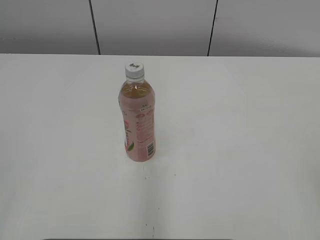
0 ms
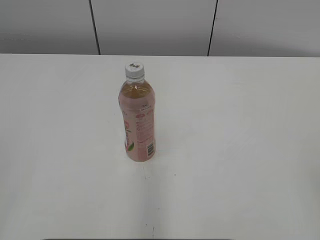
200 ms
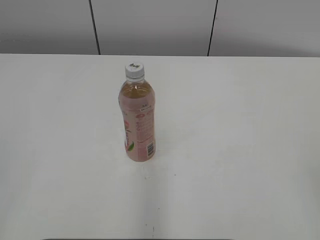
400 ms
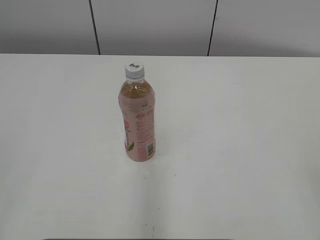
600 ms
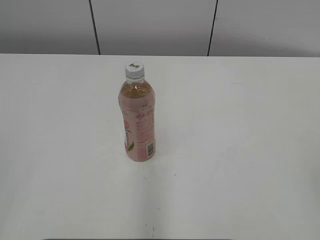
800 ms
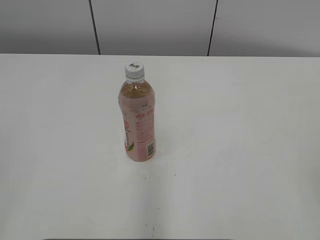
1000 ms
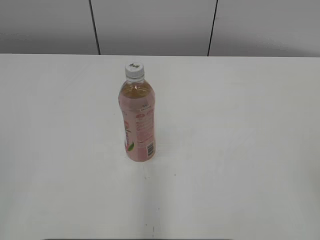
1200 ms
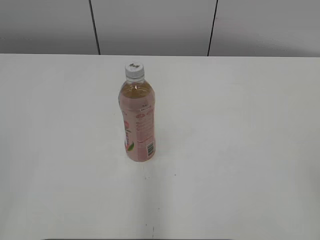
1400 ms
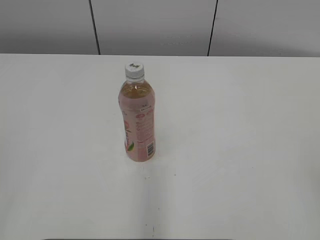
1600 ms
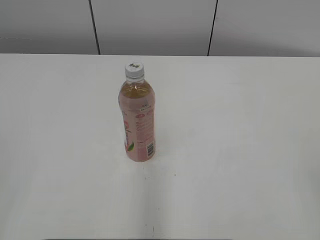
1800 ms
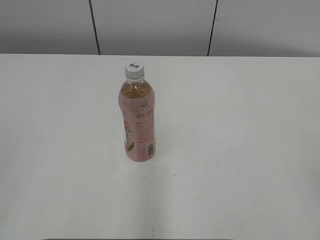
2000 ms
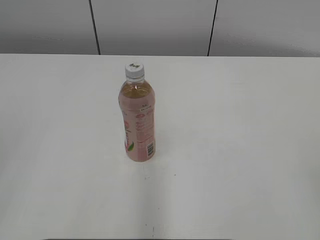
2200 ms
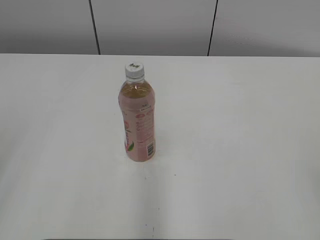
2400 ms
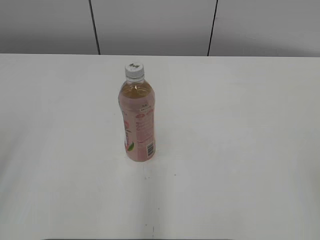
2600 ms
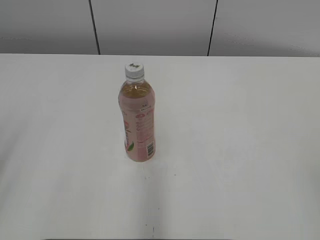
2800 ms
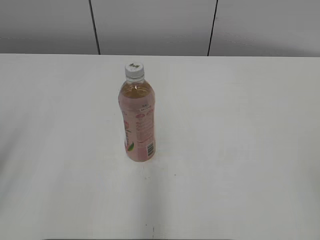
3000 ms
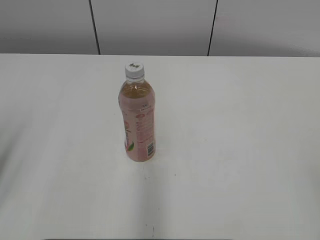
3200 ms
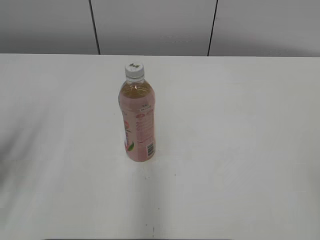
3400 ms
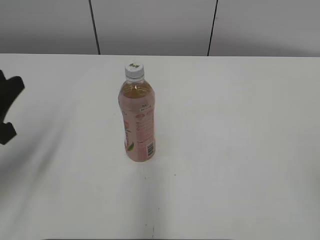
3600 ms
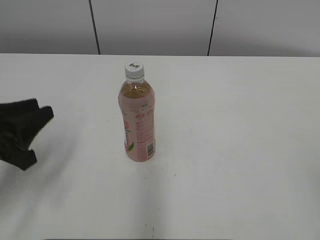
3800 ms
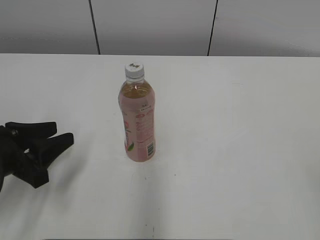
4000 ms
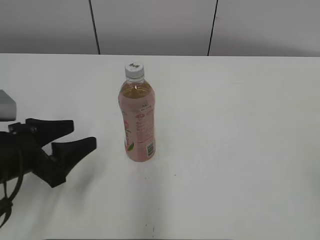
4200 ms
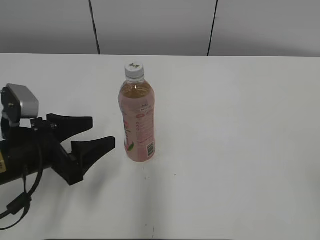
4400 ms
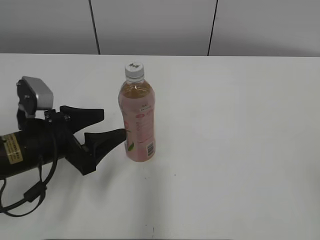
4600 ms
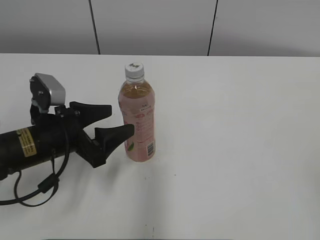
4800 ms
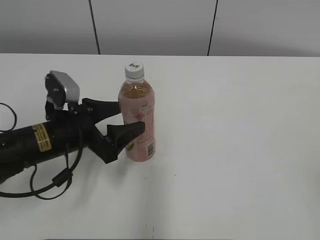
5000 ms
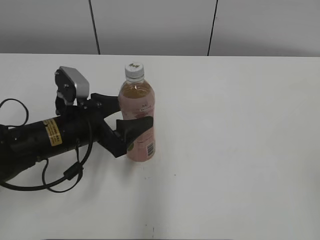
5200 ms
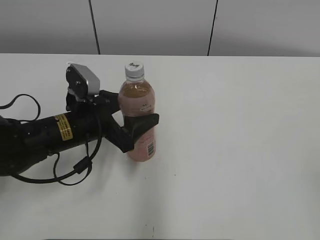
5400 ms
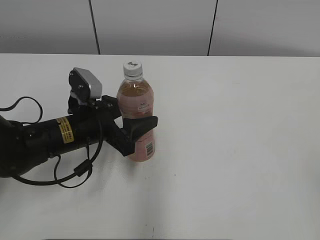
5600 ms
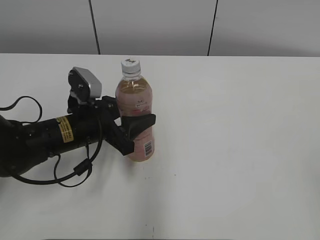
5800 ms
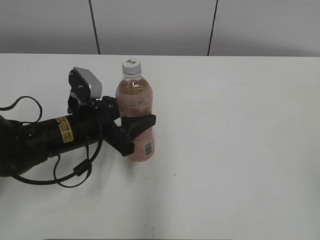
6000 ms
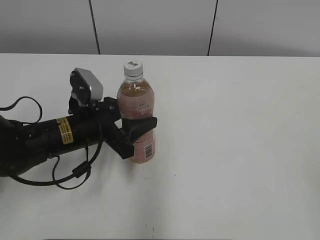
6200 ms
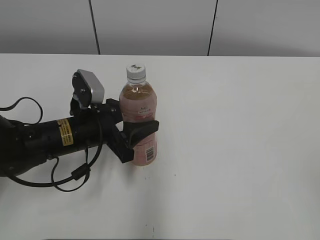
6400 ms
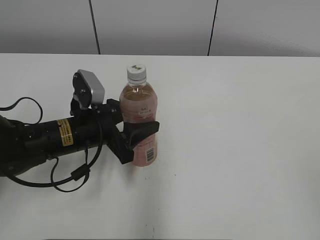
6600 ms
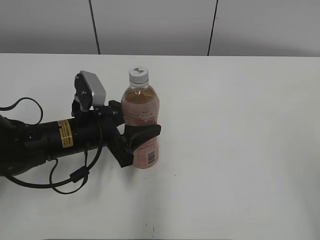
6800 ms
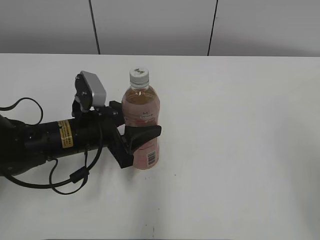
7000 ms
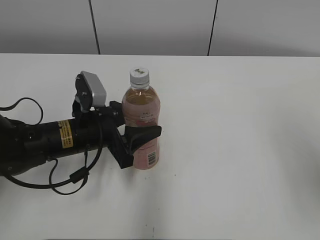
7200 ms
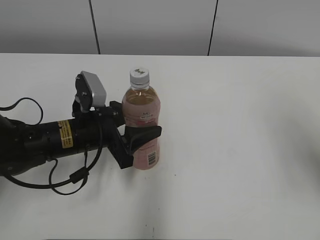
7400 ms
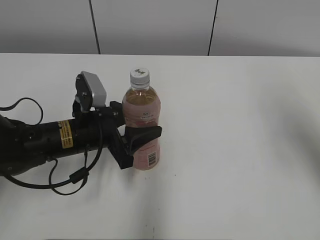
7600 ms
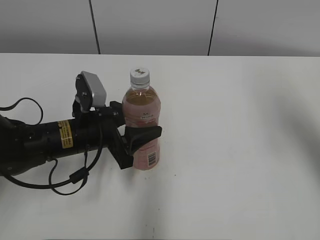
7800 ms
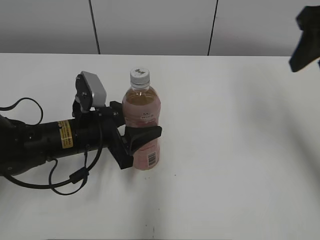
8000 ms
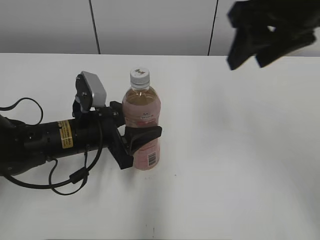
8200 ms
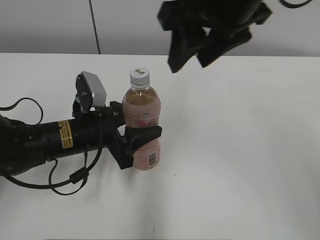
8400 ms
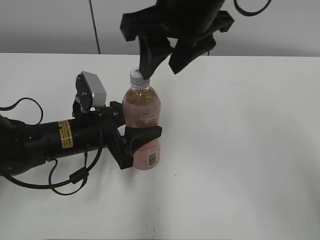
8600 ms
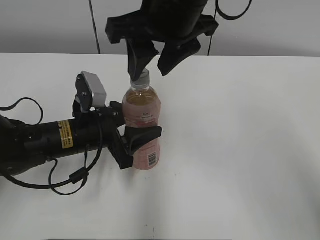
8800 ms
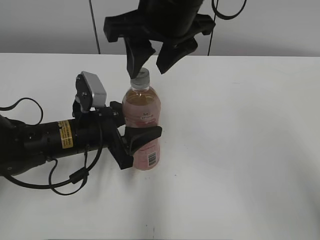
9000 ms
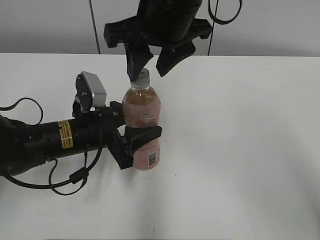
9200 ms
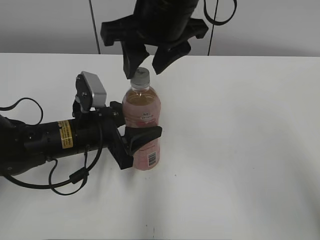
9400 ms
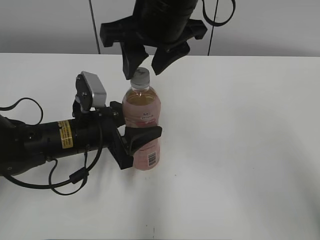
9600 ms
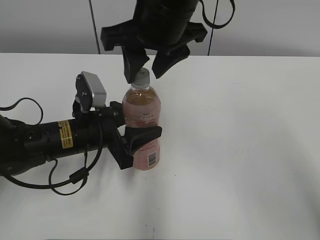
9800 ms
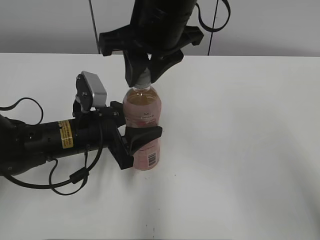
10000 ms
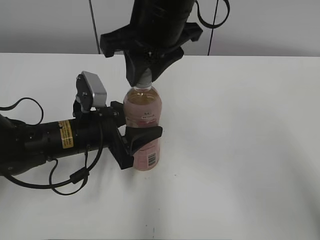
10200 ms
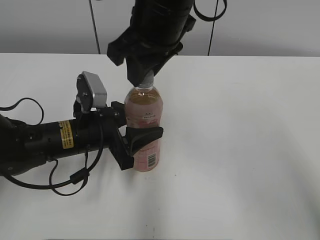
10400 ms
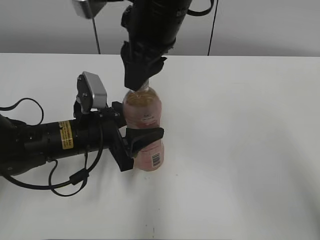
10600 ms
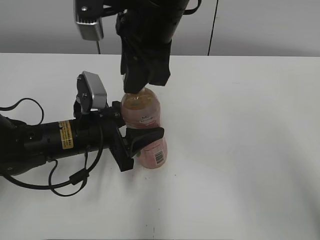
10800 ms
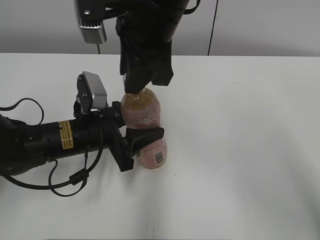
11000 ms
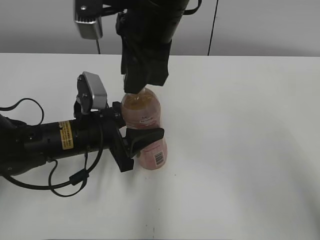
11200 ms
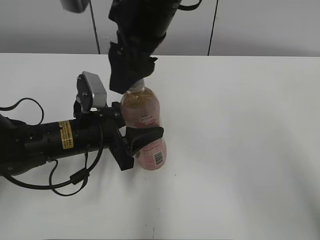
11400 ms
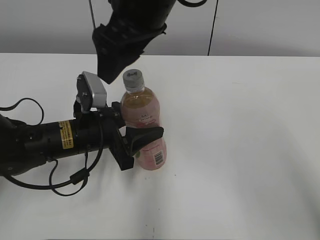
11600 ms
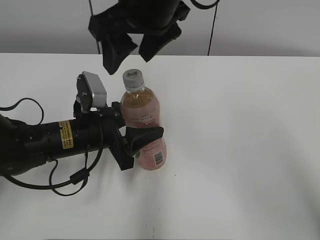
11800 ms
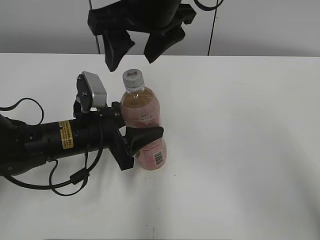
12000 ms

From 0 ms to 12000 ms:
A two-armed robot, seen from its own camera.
Step, from 0 ms to 5600 ms: Grab the Peach Oolong Tea with the left hand.
From 3000 ms to 4400 ms: The left gripper goes some 20 cm downward, forward and to the right, and opens up.
From 4400 ms to 6000 ms: The left gripper travels forward and to the right by some 10 cm, and closes its fingers.
From 6000 ms to 7600 ms: The right gripper travels forward by roughly 25 cm.
From 7600 ms to 9000 ms: The right gripper goes some 25 cm to the left.
From 9000 ms to 10400 ms: The right gripper closes up.
From 10400 ms to 12000 ms: The right gripper opens its fingers.

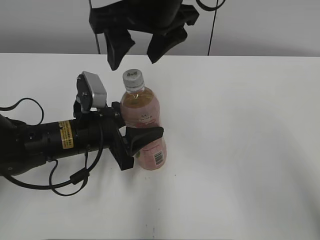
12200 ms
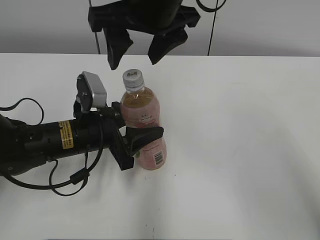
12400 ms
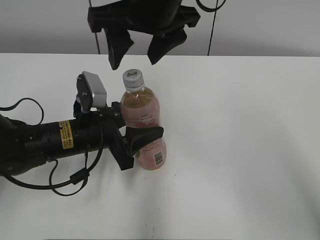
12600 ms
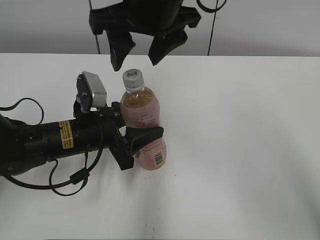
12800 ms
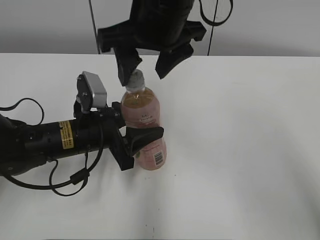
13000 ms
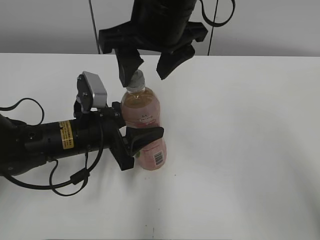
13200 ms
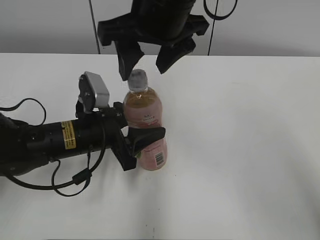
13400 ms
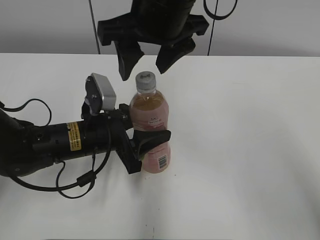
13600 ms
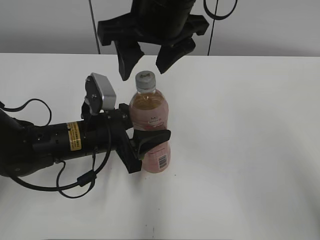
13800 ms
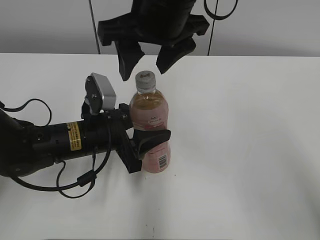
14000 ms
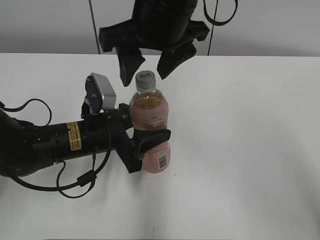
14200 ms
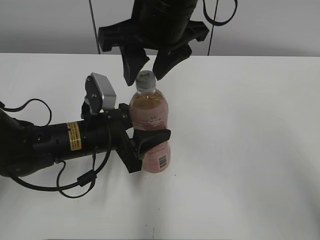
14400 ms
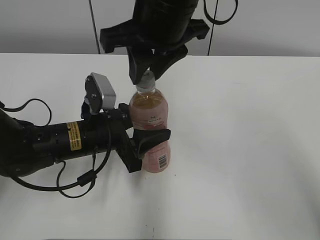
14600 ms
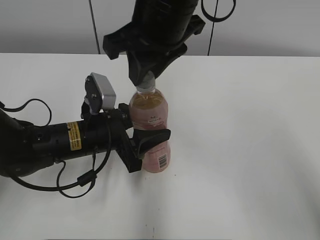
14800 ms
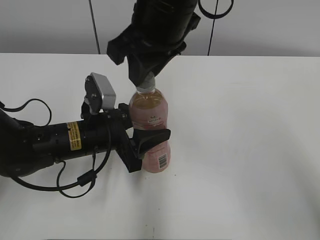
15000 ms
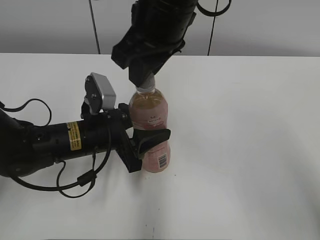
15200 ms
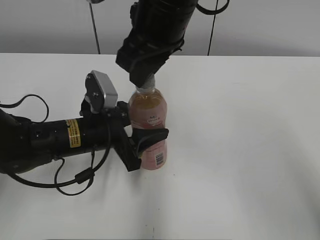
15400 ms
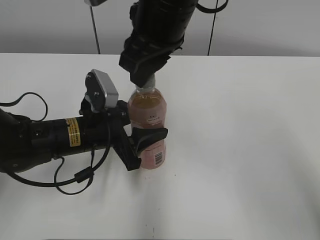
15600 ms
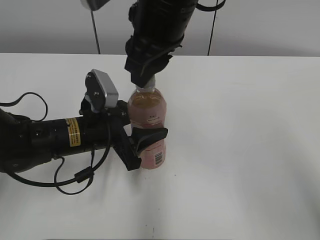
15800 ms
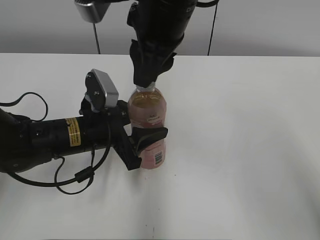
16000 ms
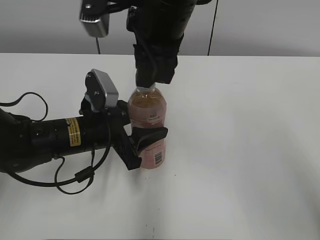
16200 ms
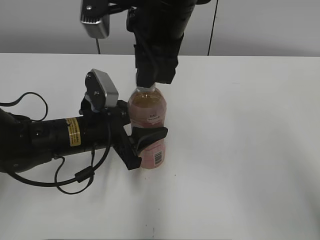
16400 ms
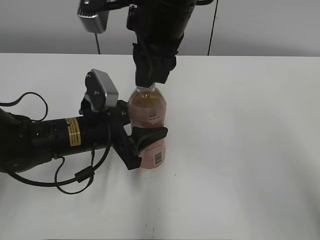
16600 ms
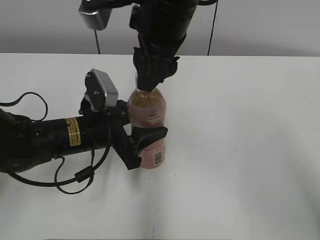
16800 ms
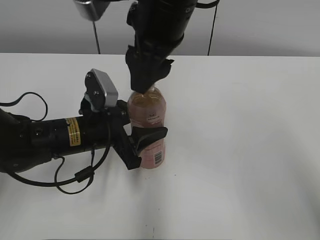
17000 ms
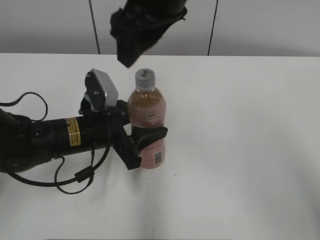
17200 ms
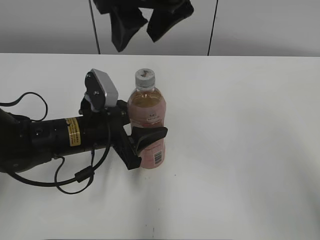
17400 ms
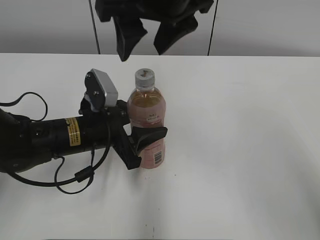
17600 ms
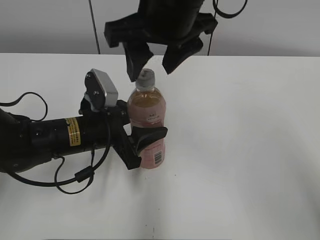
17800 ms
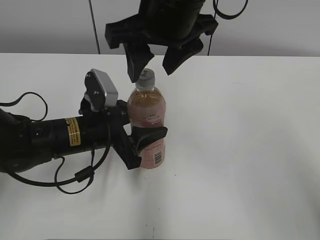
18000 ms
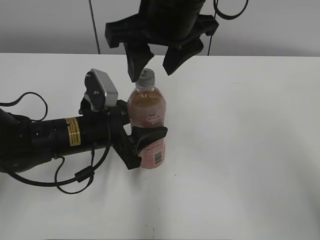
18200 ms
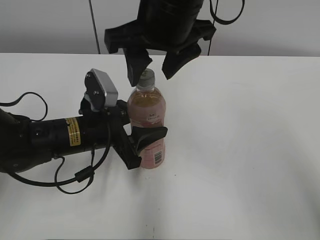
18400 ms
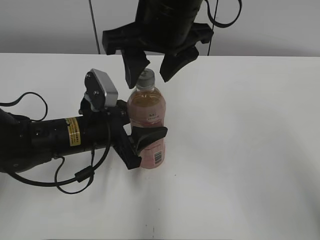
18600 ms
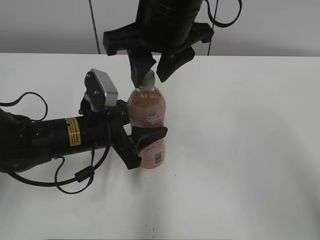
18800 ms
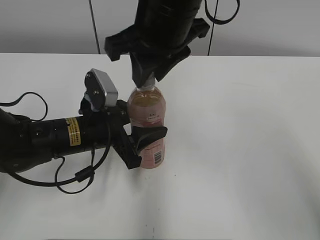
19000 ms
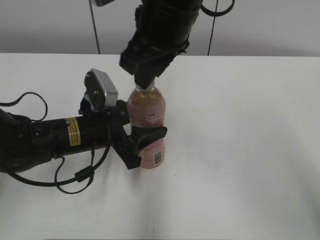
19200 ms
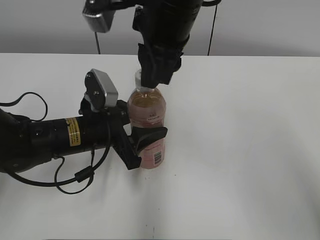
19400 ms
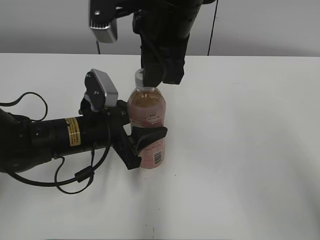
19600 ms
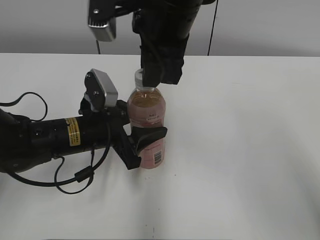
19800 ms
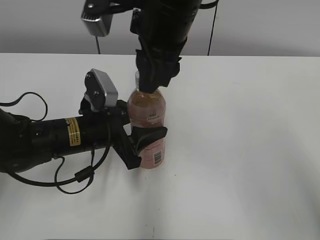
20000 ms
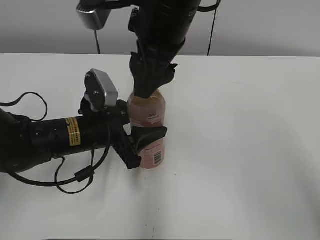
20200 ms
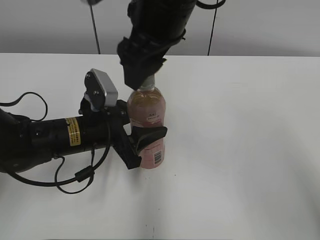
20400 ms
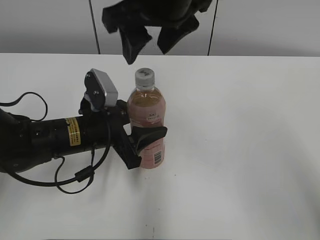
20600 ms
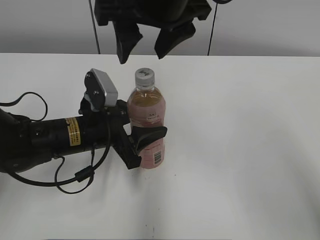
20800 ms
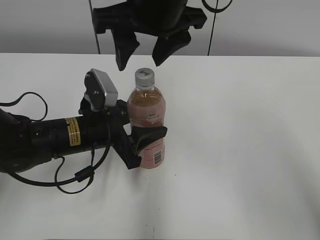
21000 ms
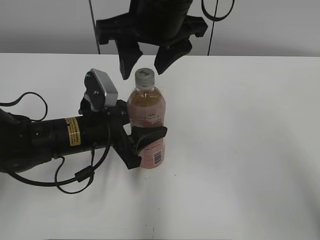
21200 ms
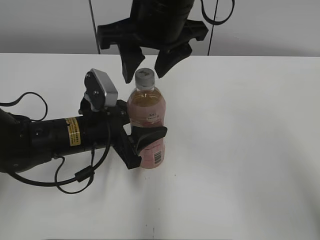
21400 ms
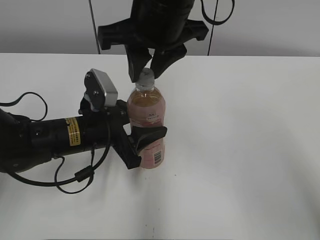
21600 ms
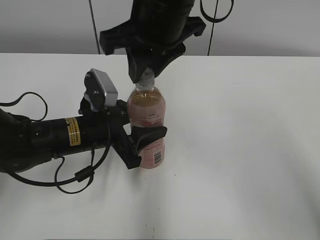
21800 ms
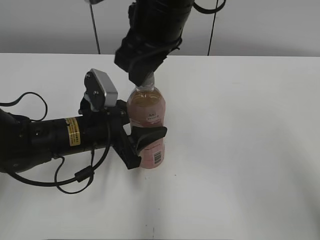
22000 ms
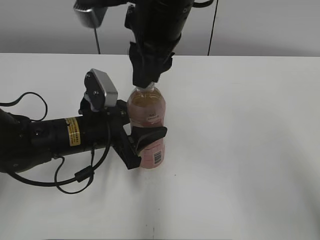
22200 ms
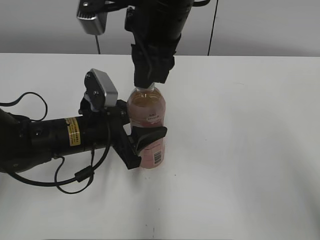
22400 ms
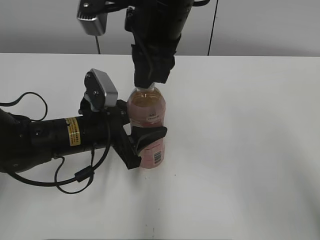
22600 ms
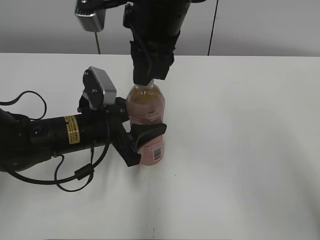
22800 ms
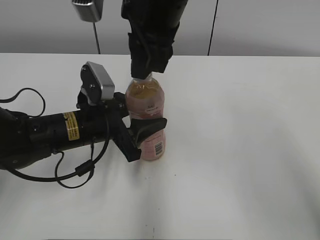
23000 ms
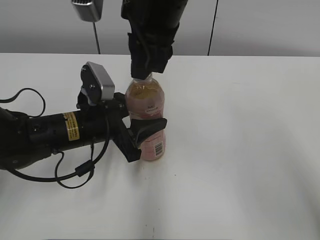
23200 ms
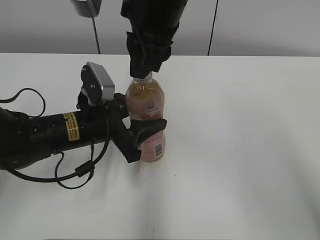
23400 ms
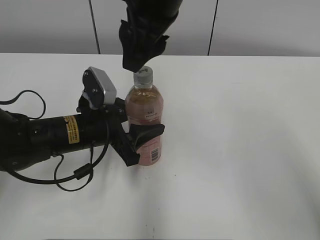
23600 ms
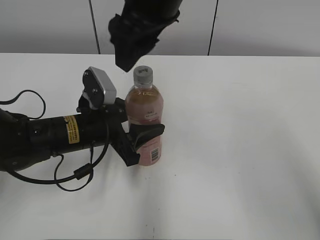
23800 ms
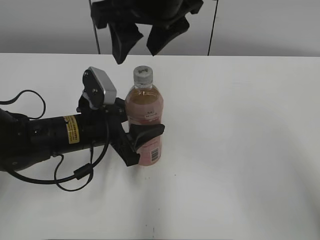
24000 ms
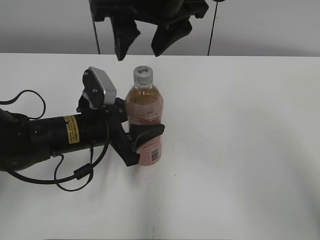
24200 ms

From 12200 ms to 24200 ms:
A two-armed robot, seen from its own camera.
From 12200 ms to 13800 ms: The grippers stay close to where they were, moving slightly.
From 13800 ms to 15200 ms: The right gripper closes up.
From 16600 ms to 18200 ms: The right gripper opens up.
From 18200 ms to 19800 ms: The right gripper closes its fingers.
From 19800 ms to 21200 ms: The right gripper opens up.
From 21200 ms to 22600 ms: The right gripper closes up.
From 22600 ms to 24200 ms: The right gripper opens its fingers.
